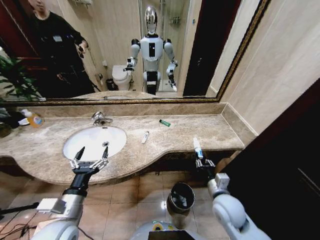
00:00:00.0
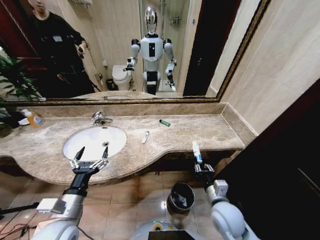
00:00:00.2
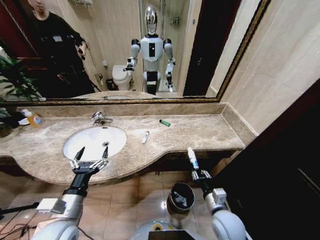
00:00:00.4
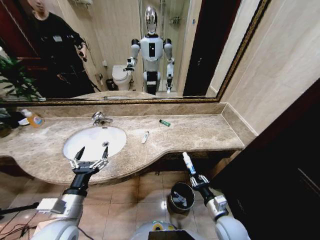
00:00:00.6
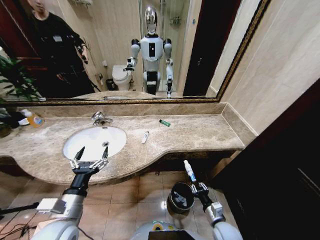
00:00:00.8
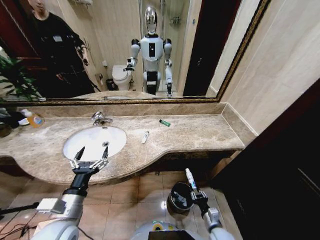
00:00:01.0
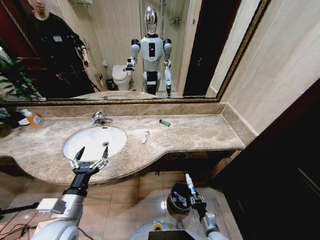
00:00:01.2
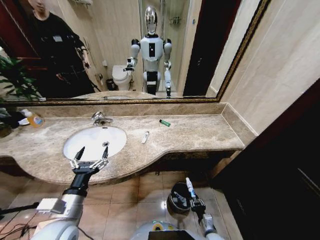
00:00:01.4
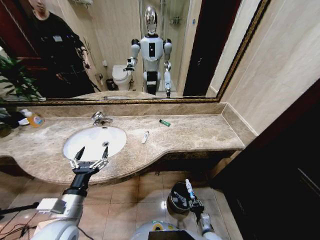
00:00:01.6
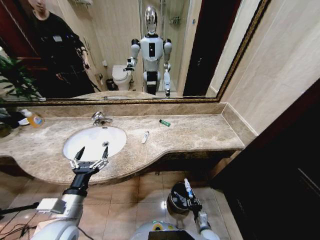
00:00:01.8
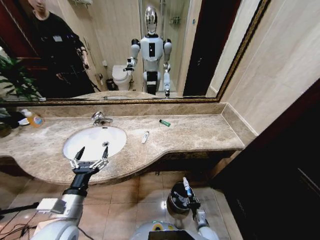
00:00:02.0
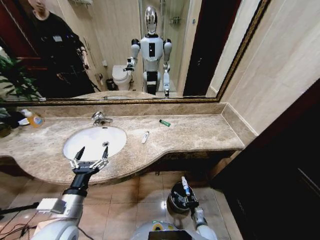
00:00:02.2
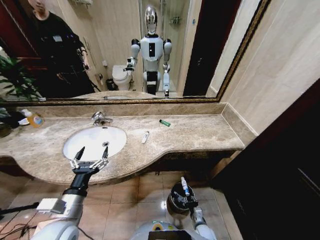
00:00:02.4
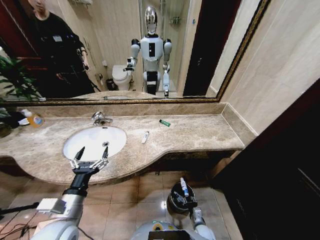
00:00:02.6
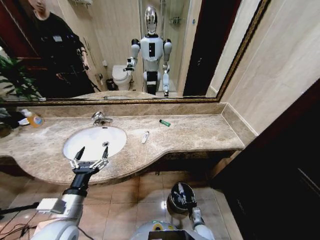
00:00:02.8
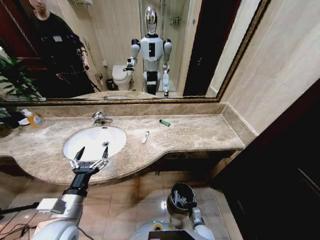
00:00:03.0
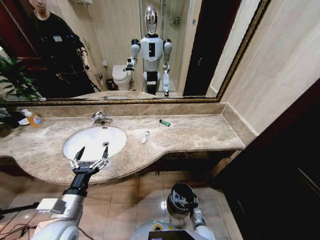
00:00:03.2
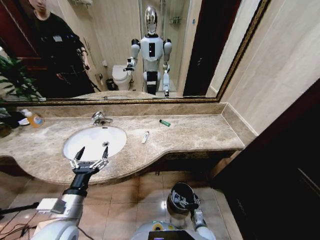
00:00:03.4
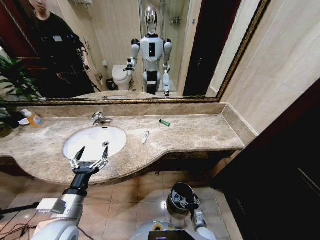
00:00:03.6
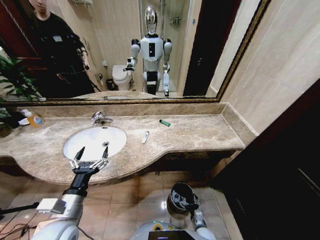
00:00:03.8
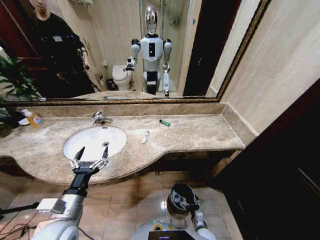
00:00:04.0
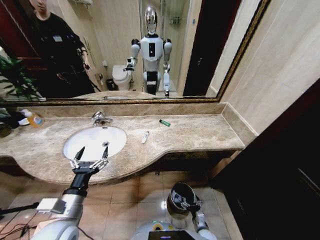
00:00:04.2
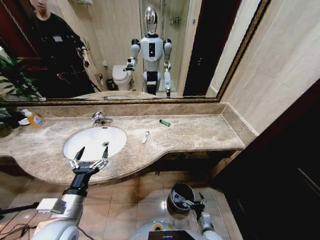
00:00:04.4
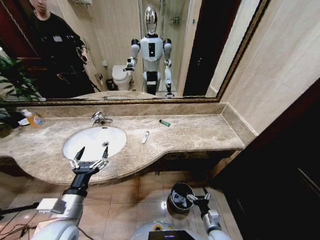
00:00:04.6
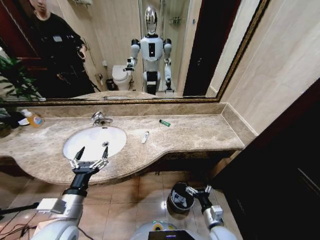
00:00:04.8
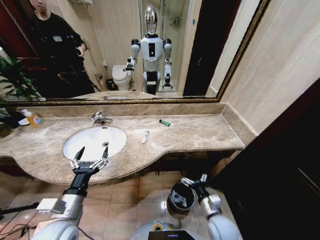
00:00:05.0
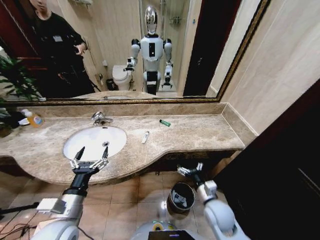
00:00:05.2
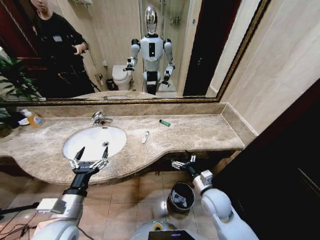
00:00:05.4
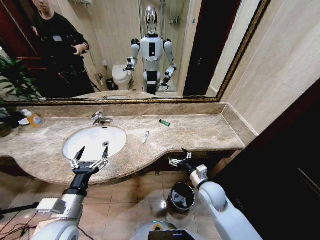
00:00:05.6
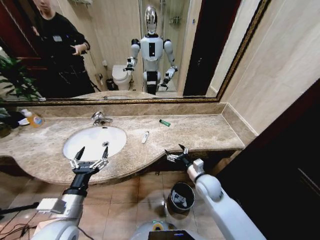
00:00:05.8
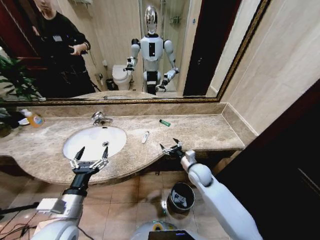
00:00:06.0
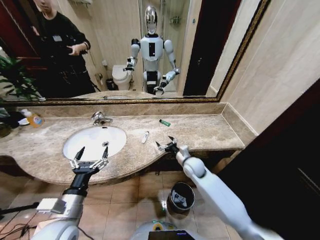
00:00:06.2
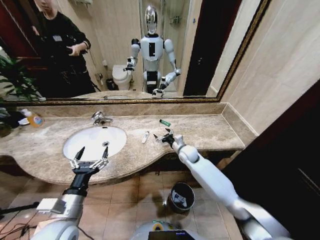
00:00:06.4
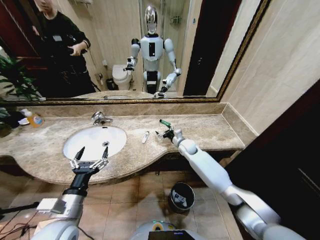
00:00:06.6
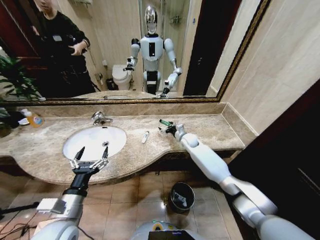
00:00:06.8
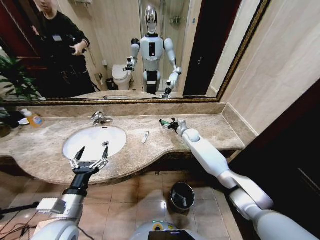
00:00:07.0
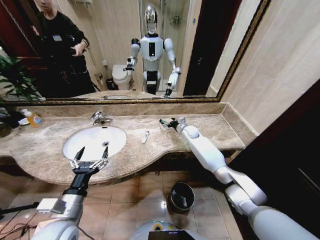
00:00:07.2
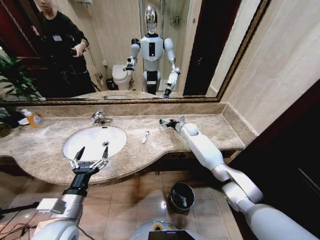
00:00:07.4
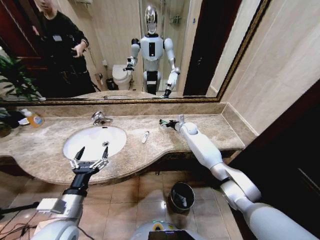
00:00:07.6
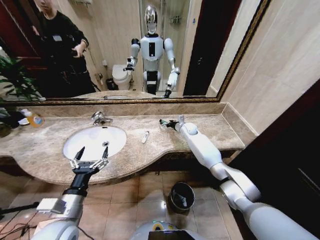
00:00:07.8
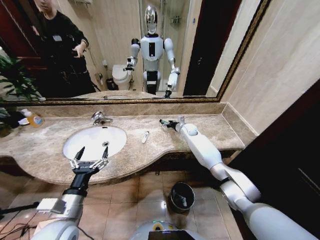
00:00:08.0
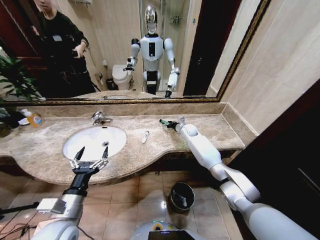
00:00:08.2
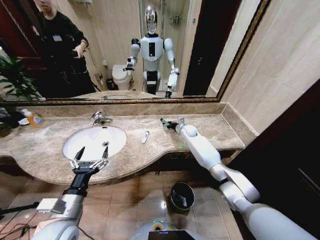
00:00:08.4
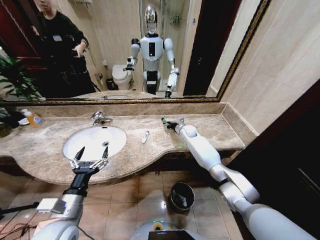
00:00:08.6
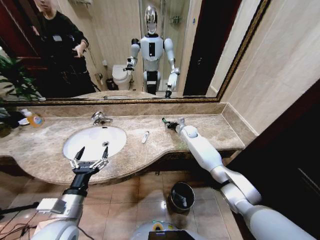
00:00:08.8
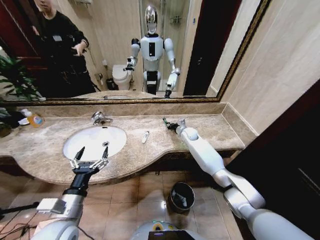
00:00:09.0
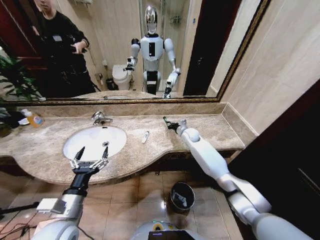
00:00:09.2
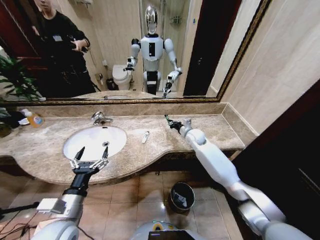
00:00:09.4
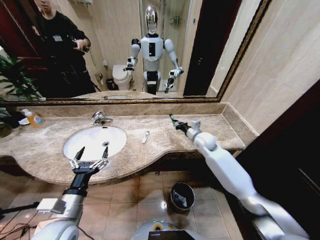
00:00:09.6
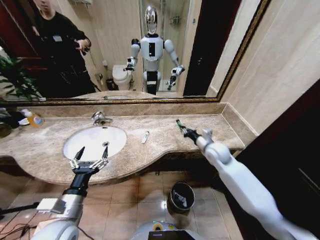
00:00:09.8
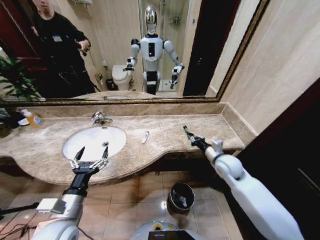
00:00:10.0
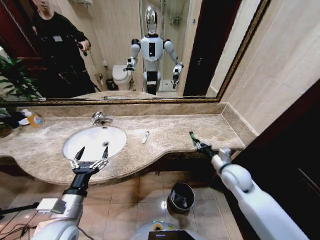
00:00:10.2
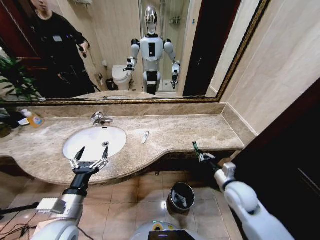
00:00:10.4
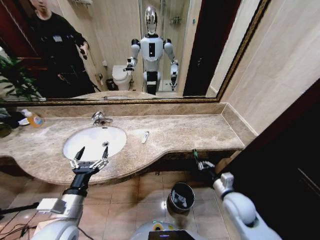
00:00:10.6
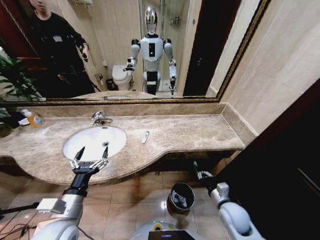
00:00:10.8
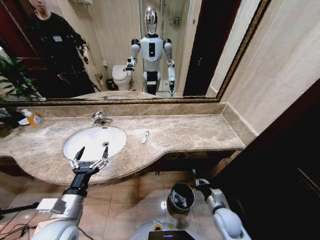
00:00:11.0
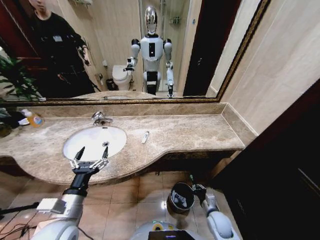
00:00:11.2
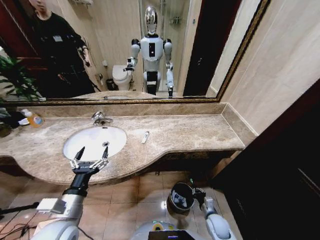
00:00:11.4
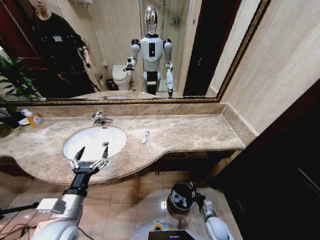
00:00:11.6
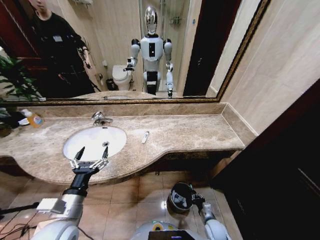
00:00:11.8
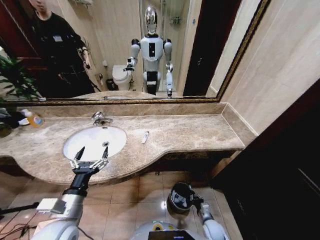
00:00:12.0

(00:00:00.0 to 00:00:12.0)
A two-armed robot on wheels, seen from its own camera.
Task of the whole recording: Pick up the trash from the sink and place it in the trash bin.
00:00:00.0 - 00:00:01.6: The right gripper goes approximately 25 cm downward.
00:00:01.6 - 00:00:03.0: The right gripper opens.
00:00:03.0 - 00:00:04.4: The grippers make only small movements.
00:00:04.4 - 00:00:06.0: The right gripper goes about 35 cm upward and forward.
00:00:06.0 - 00:00:07.6: The right gripper moves forward, approximately 25 cm.
00:00:07.6 - 00:00:09.0: The right gripper closes.
00:00:09.0 - 00:00:10.4: The right gripper heads backward, covering some 35 cm.
00:00:10.4 - 00:00:12.0: The right gripper travels downward by some 30 cm.

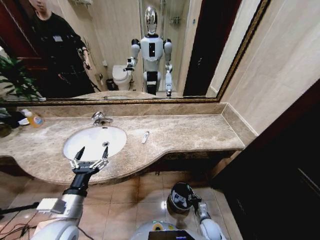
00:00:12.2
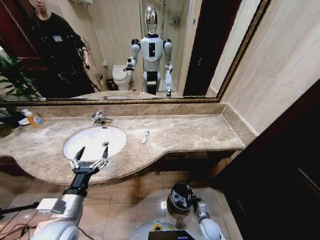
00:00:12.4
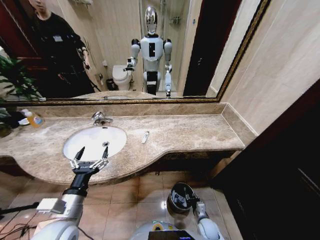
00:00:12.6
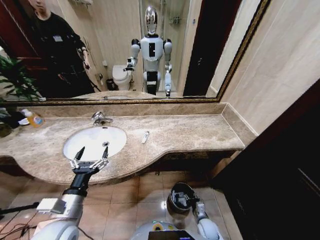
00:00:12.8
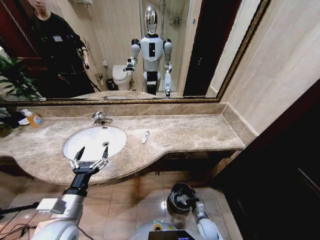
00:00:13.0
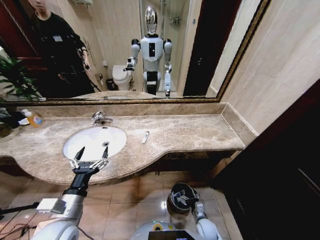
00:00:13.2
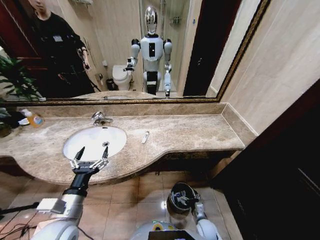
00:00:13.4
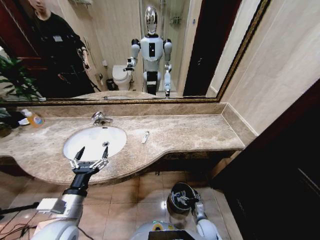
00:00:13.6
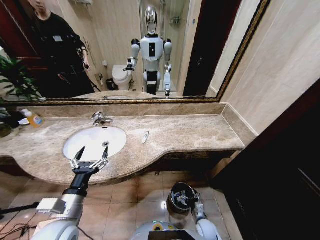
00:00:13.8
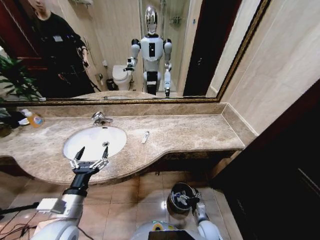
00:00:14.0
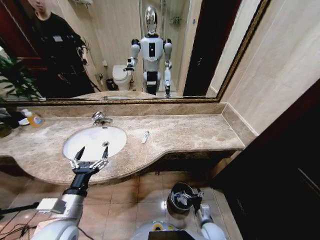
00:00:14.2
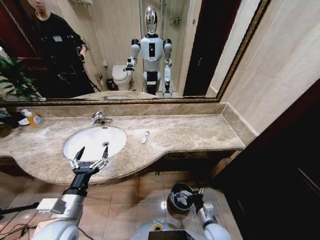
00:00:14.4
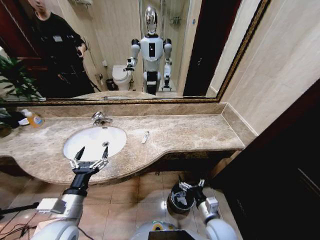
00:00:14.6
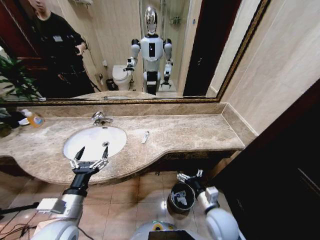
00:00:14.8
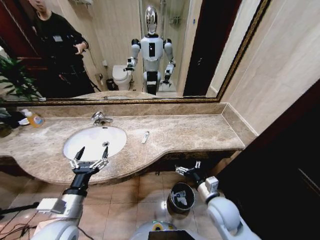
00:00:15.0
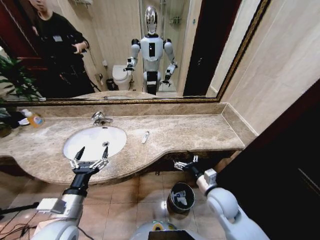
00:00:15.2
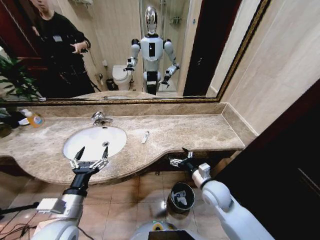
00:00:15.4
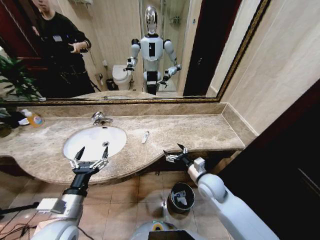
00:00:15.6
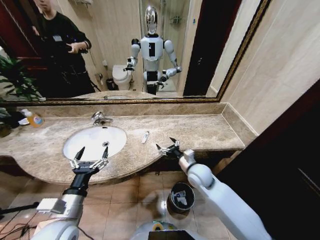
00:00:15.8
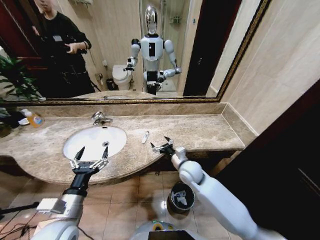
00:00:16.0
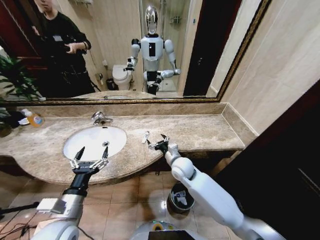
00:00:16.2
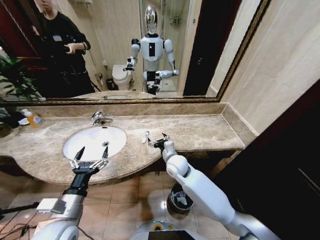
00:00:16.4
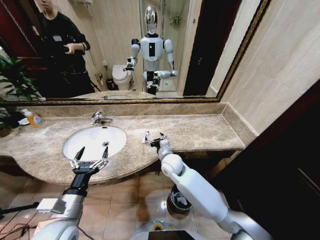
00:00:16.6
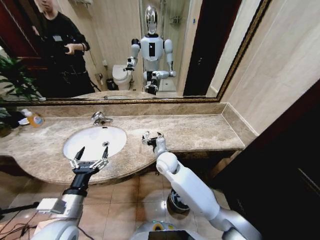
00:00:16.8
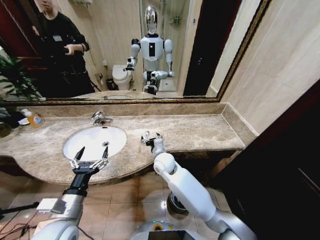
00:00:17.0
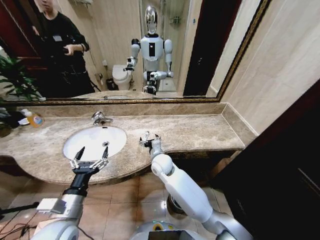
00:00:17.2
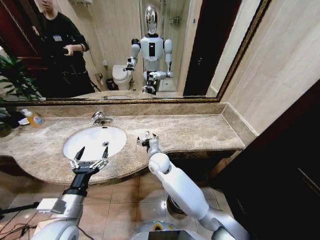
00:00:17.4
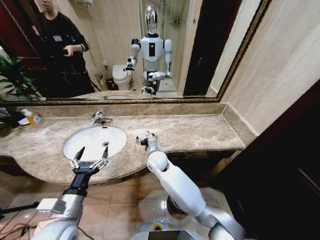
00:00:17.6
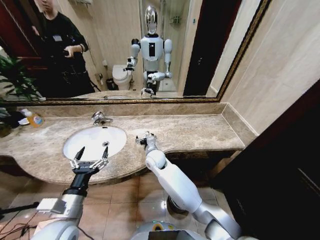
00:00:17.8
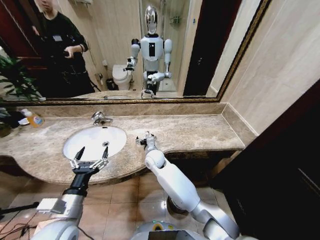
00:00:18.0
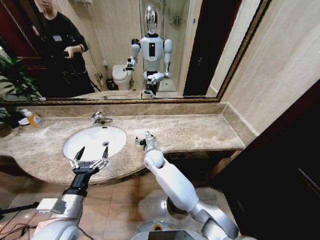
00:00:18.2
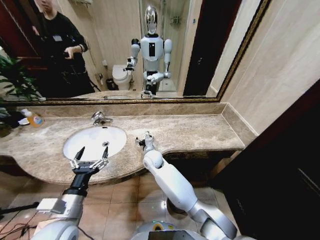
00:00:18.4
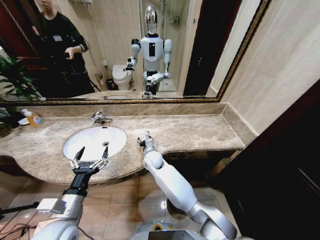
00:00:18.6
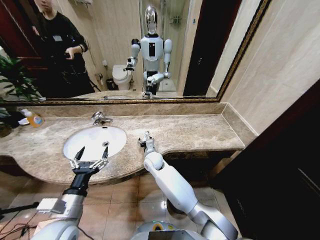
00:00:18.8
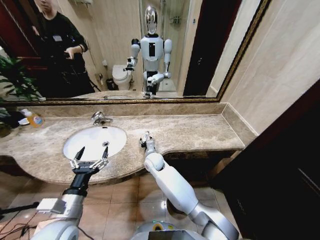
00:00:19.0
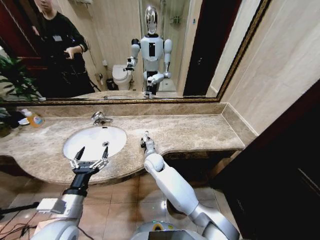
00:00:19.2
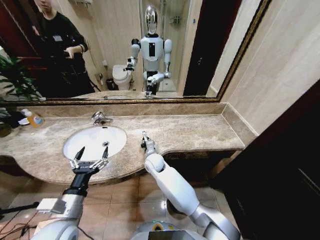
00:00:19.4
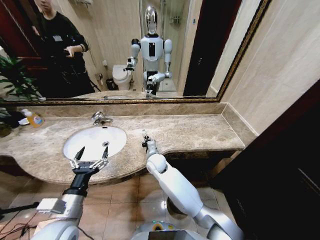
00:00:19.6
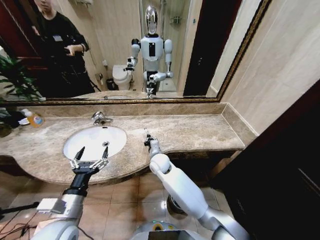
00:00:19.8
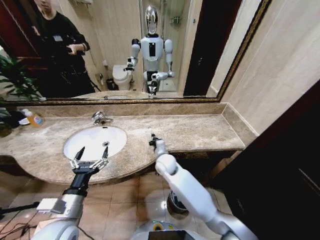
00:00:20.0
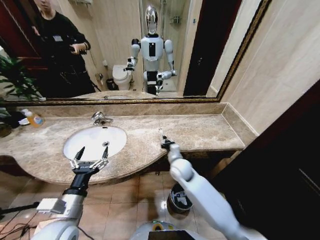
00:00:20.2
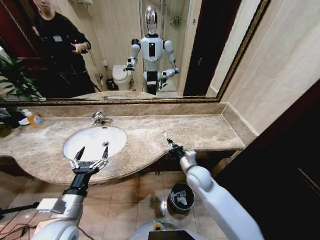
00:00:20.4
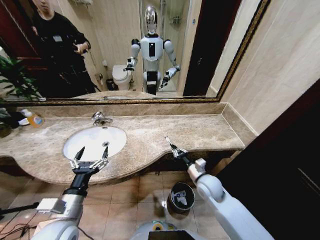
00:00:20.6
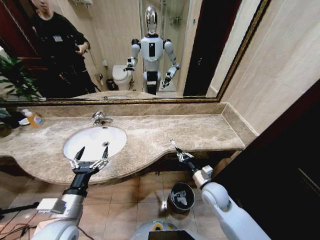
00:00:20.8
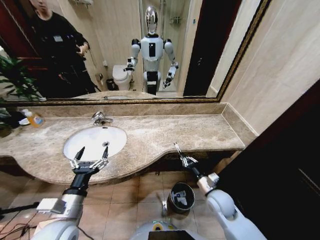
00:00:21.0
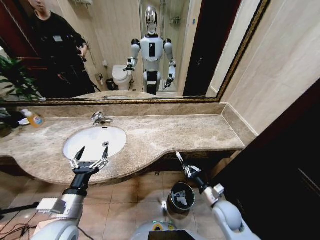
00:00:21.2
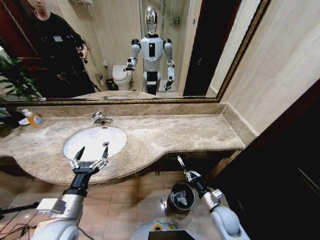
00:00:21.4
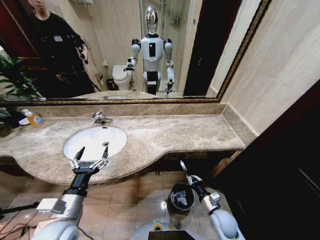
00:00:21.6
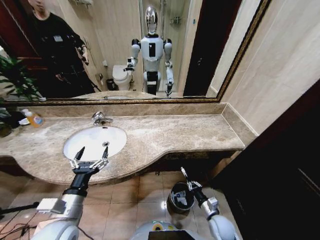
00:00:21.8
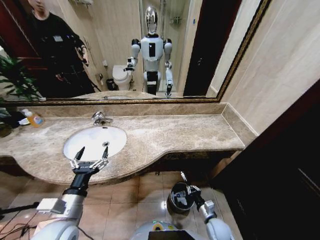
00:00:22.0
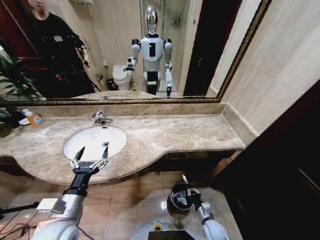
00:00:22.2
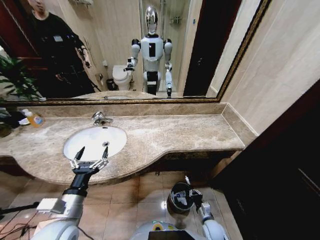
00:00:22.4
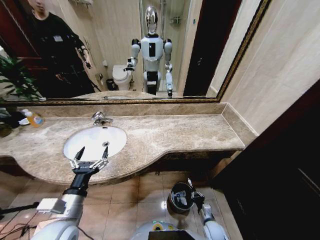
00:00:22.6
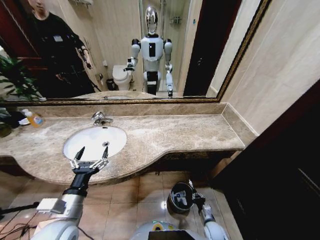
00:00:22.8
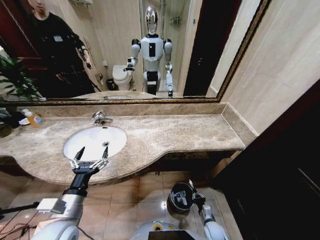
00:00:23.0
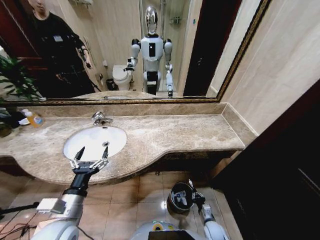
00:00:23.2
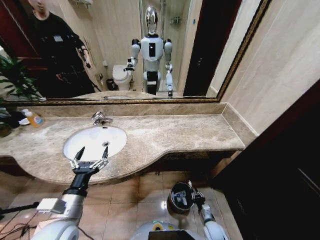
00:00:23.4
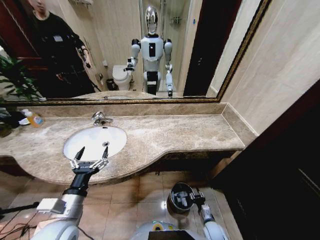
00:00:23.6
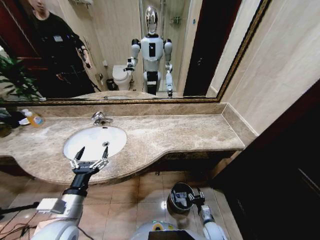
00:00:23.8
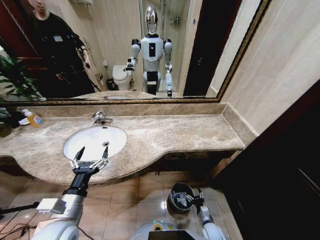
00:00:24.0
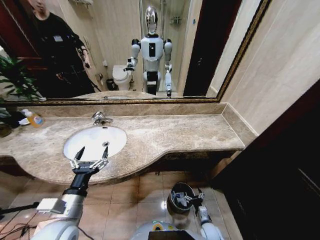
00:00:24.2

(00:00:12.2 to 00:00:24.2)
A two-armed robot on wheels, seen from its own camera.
Task of the whole recording: Pick up the trash from the sink and place it in the trash bin.
00:00:12.2 - 00:00:13.8: The right gripper opens.
00:00:13.8 - 00:00:15.2: The right gripper is displaced upward by about 25 cm.
00:00:15.2 - 00:00:16.6: The right gripper shifts roughly 20 cm to the left and forward.
00:00:16.6 - 00:00:18.2: The right gripper is displaced to the left by approximately 10 cm.
00:00:18.2 - 00:00:19.8: The right gripper closes up.
00:00:19.8 - 00:00:21.2: The right gripper is displaced to the right and backward by roughly 35 cm.
00:00:21.2 - 00:00:22.6: The right gripper goes approximately 20 cm downward.
00:00:22.6 - 00:00:24.2: The right gripper opens.
